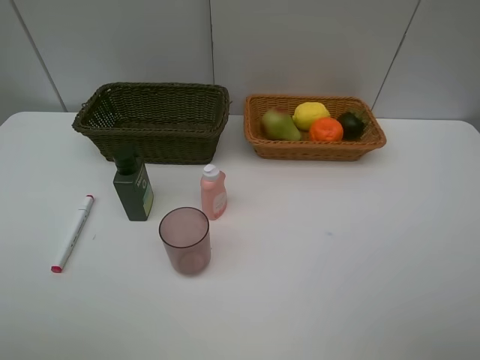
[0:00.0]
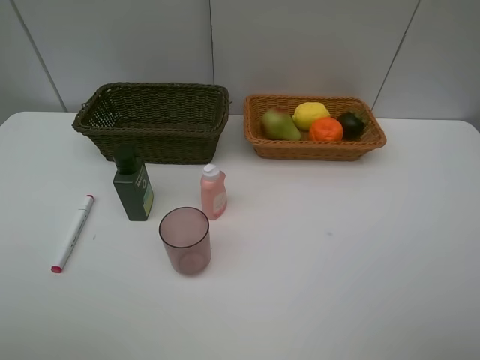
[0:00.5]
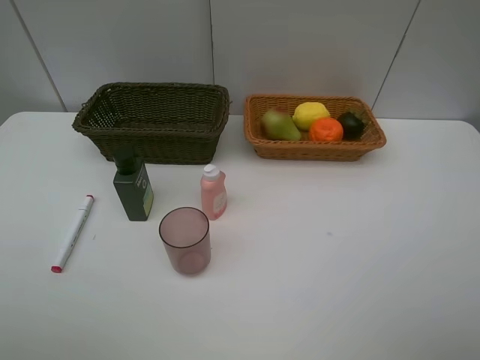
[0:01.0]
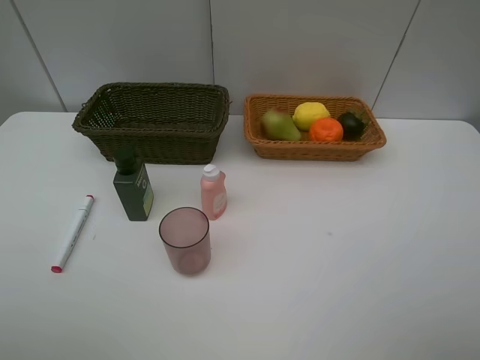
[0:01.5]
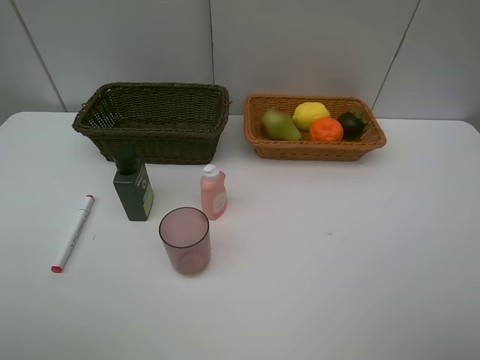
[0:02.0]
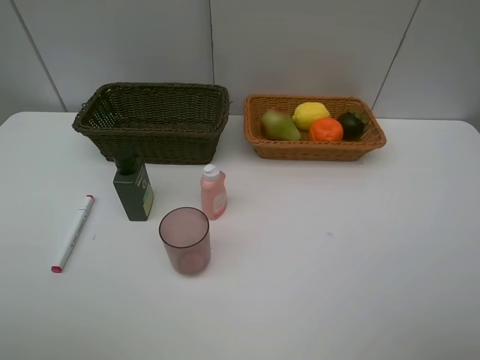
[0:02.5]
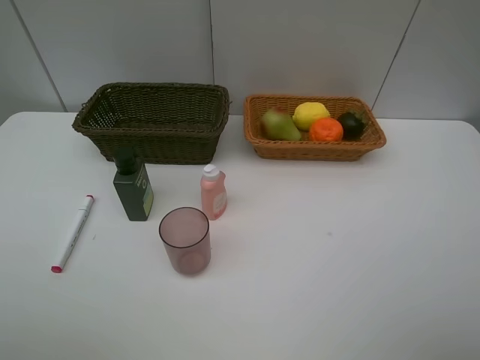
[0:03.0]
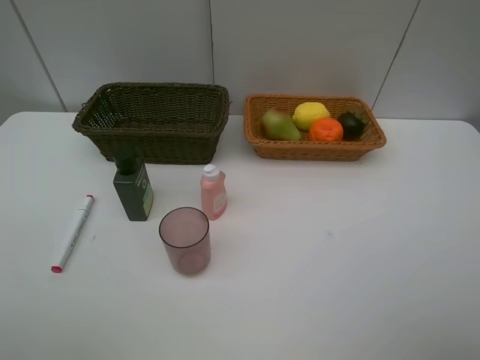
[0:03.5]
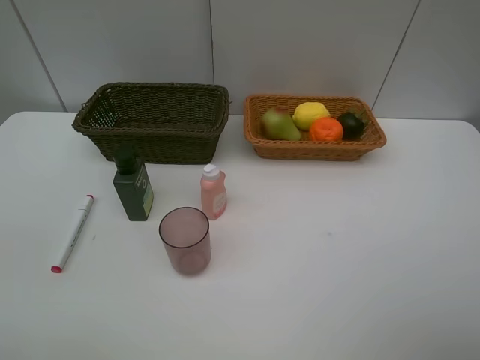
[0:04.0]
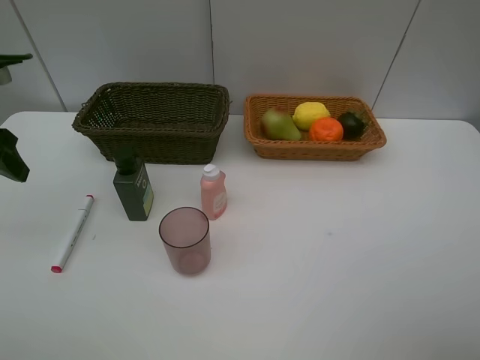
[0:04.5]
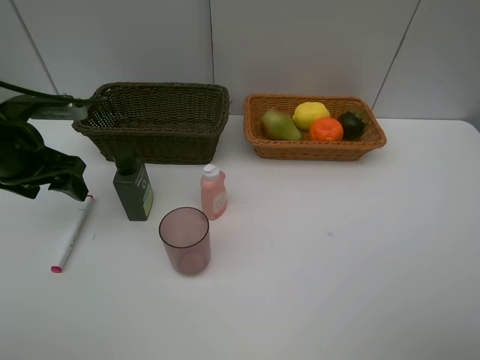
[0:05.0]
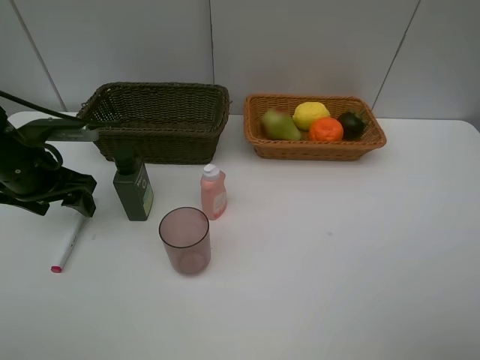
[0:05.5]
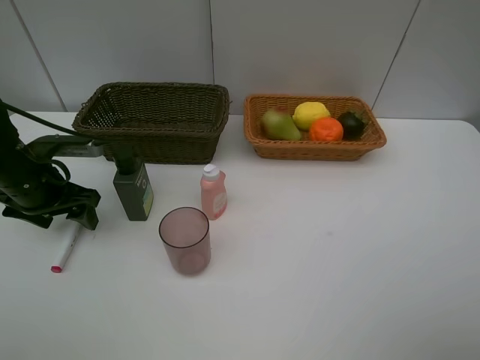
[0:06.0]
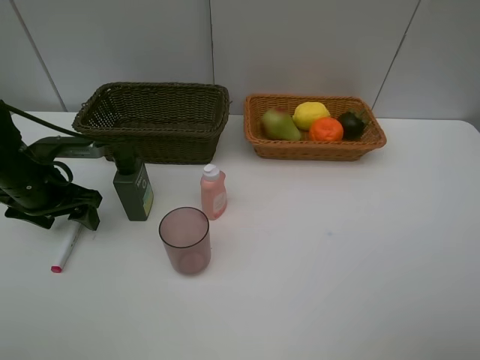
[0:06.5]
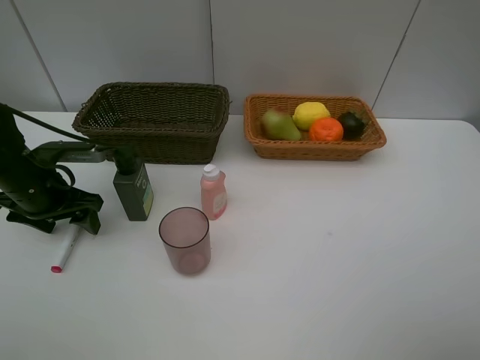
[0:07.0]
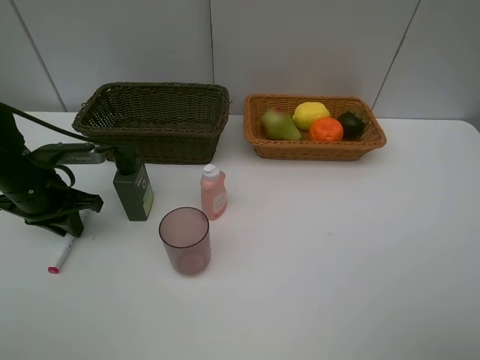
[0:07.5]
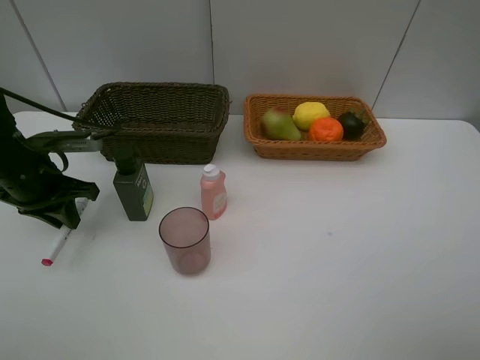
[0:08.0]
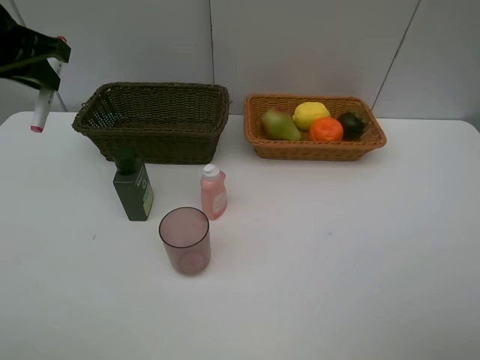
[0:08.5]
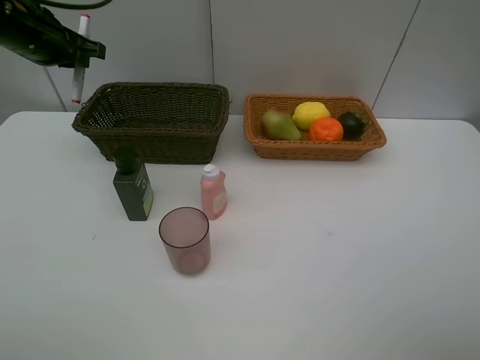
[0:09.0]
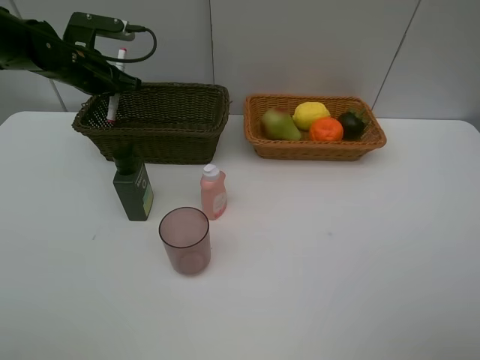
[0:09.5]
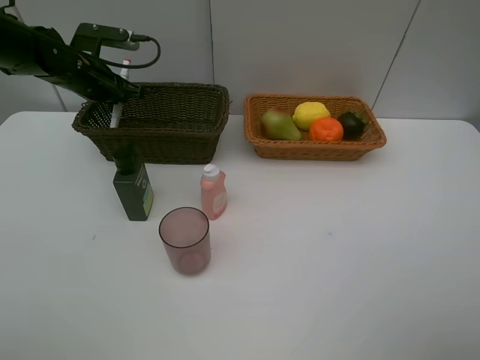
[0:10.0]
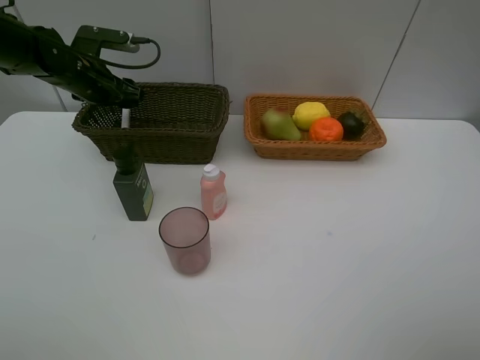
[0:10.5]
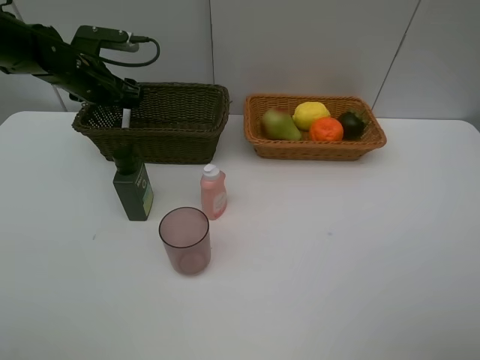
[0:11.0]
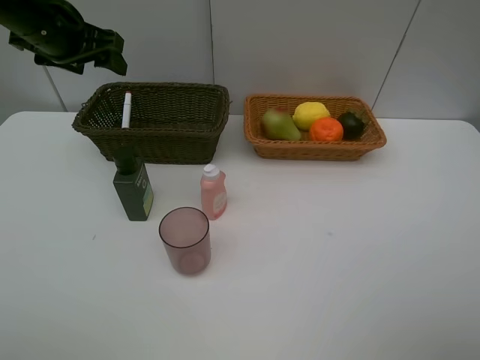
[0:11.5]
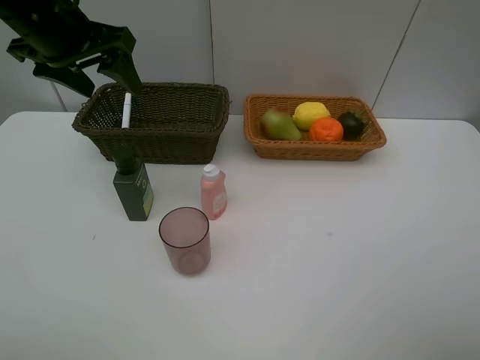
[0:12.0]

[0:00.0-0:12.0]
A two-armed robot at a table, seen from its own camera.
Task of the whole recording: Place multiple objects separately in different baskets.
Step, 0:00.0 to 0:08.0: Pick up the red marker with left gripper.
Step, 0:08.5 to 0:11.0: Place the red marker in the dark basket with left gripper.
0:04.0 to 0:06.0: The left gripper goes some 20 cm downward and forward.
0:06.0 to 0:08.0: The left gripper closes its fingers.
0:08.0 to 0:10.0: The left gripper shifts approximately 15 cm forward.
0:10.0 to 0:12.0: The left gripper shifts some 20 cm upward and backward, and opens.

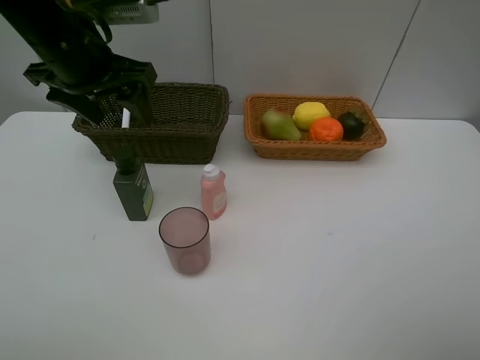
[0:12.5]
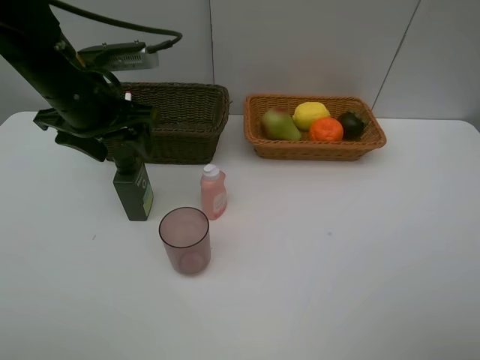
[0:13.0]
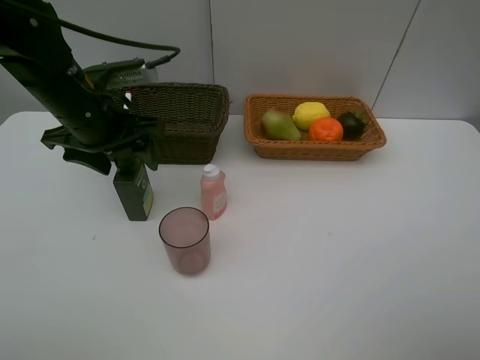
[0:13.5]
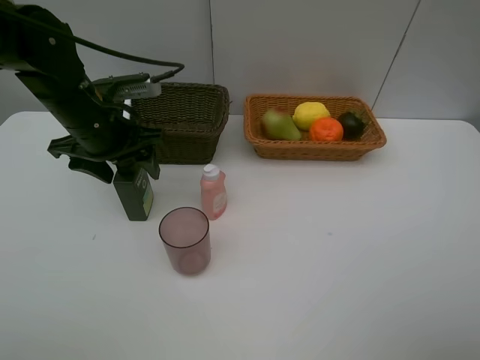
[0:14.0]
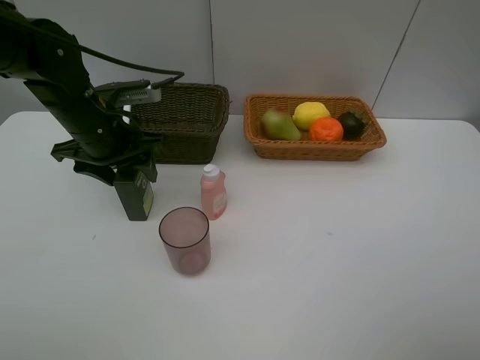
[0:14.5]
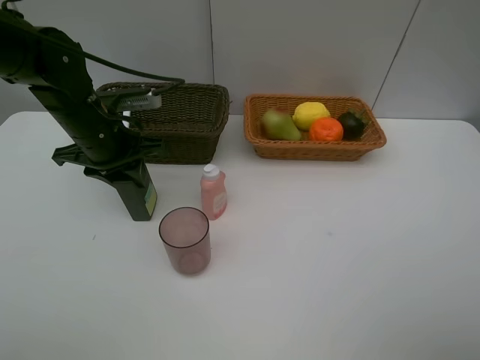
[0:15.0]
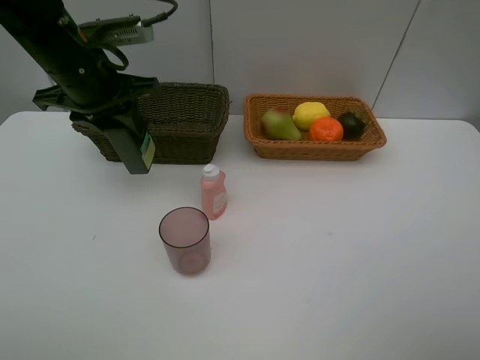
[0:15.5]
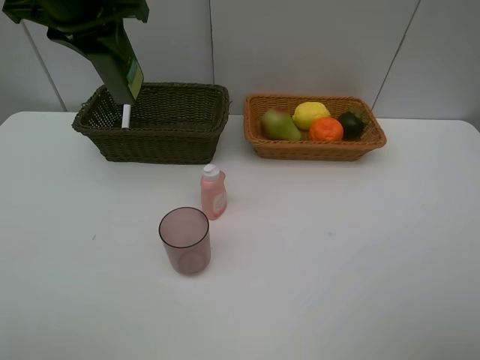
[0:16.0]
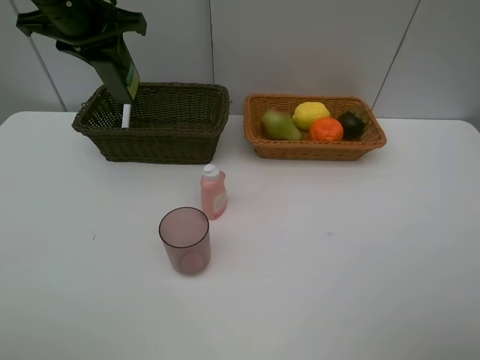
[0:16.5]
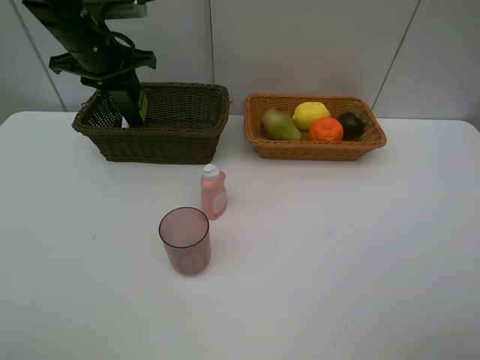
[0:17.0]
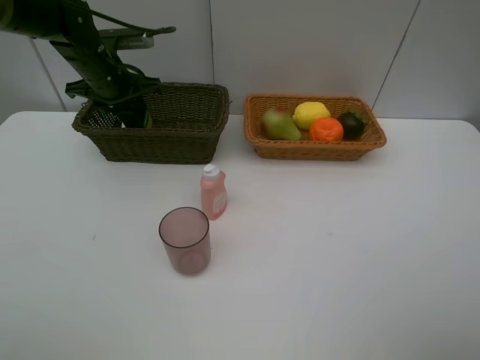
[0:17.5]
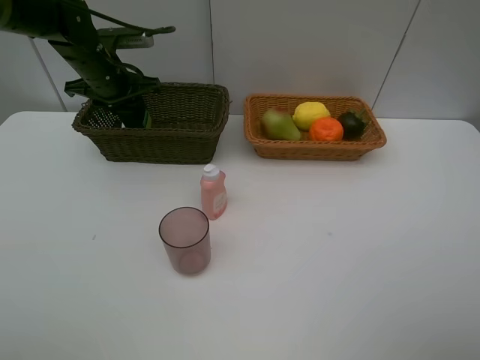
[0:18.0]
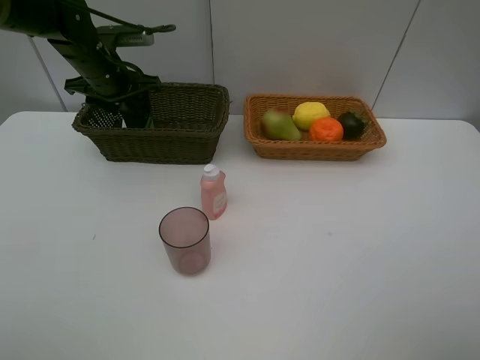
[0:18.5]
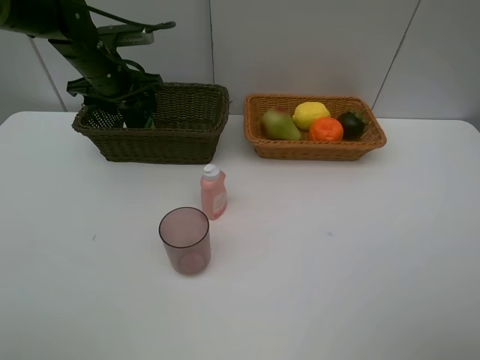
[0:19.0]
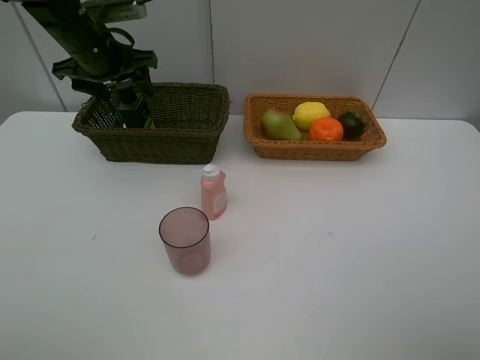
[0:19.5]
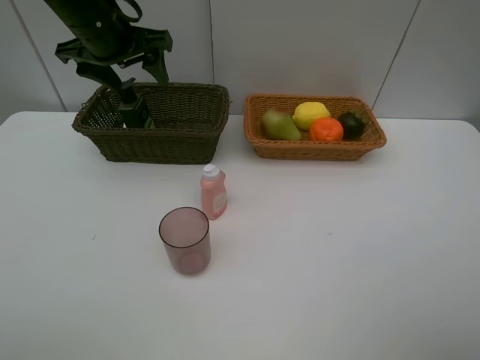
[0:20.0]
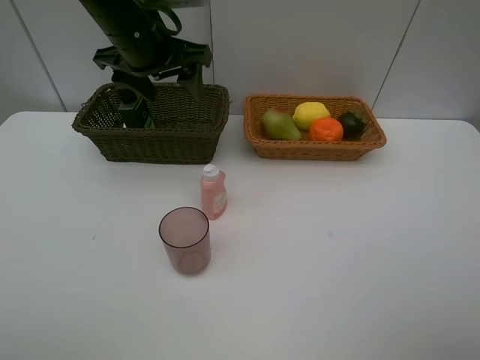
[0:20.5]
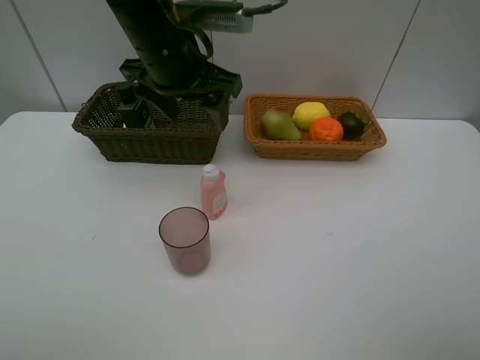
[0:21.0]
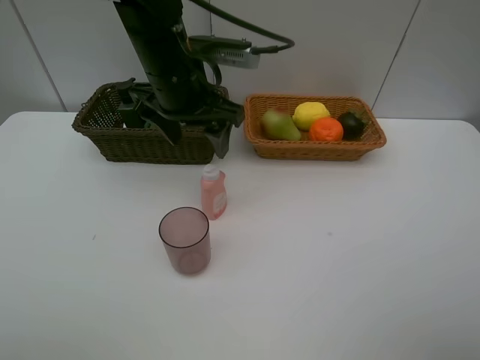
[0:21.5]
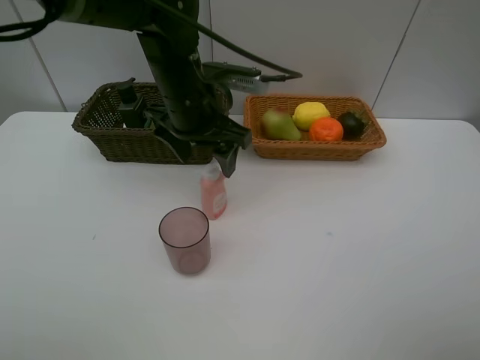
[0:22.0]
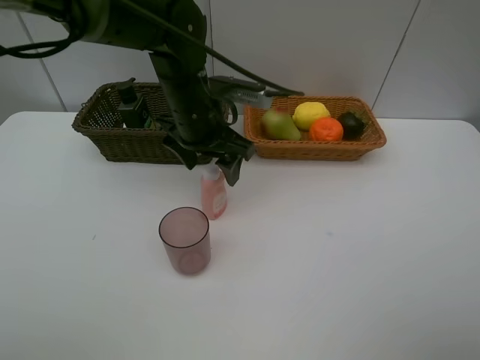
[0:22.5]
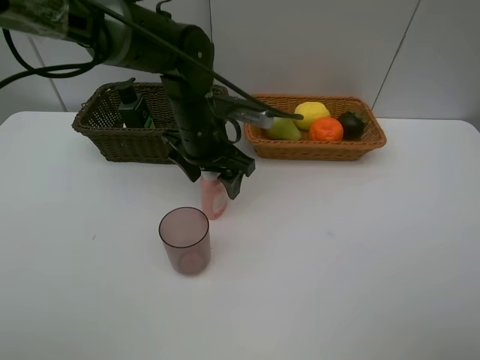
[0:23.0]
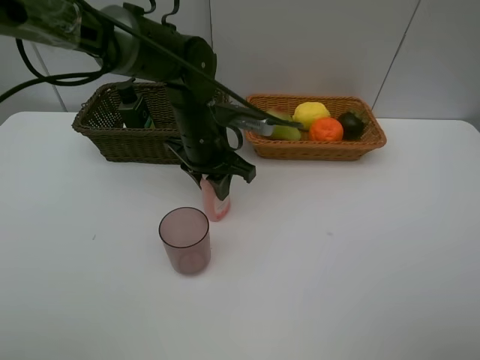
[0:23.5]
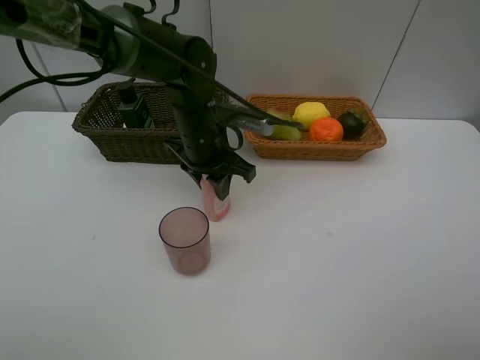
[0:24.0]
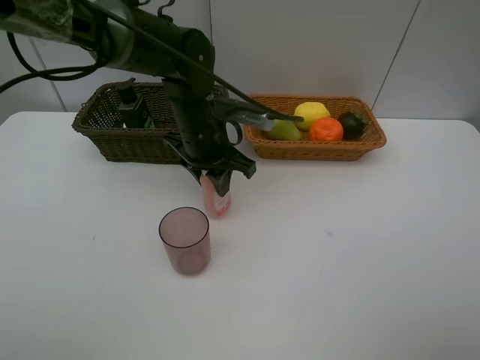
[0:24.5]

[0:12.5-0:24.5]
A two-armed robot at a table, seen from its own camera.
Task of the whole recording: Place multiple objects separately in different baskets.
Step, 0:12.5 to 0:15.0: Pick up the hard facial cleanser with left gripper.
Step, 0:15.5 to 0:19.5: Place the hard facial cleanser in the dark basket with left gripper.
0:12.5 to 0:14.5: The left gripper travels downward by about 10 cm.
0:14.5 to 0:16.5: The left gripper moves upward and forward, roughly 15 cm.
0:16.5 to 0:18.5: The left gripper shifts approximately 10 cm downward and forward, and opens.
0:18.5 to 0:20.5: The left gripper heads to the right, upward and backward, covering approximately 15 cm.
0:20.5 to 0:22.5: The left gripper heads downward and to the right, covering approximately 10 cm.
0:22.5 to 0:24.5: The left gripper closes up.

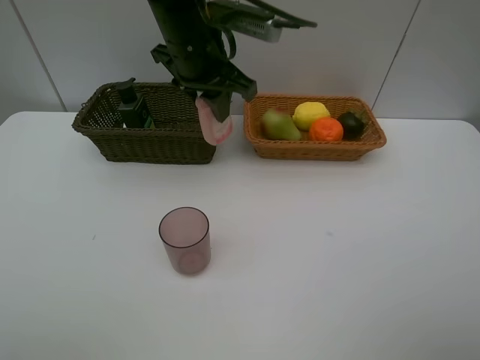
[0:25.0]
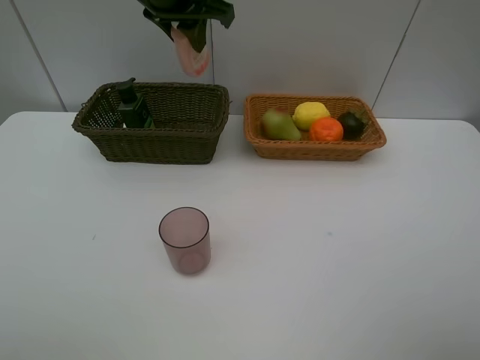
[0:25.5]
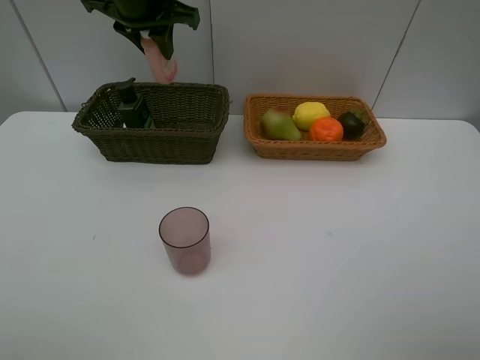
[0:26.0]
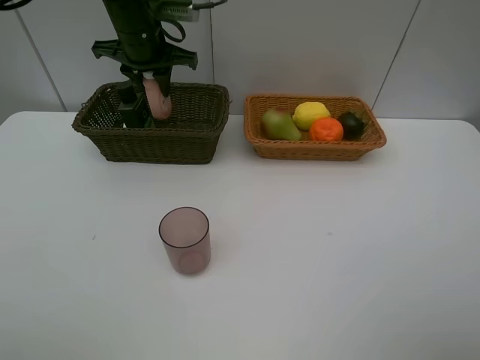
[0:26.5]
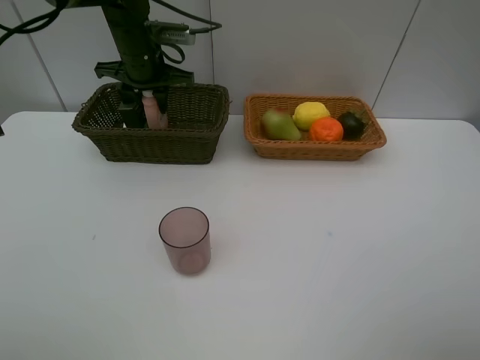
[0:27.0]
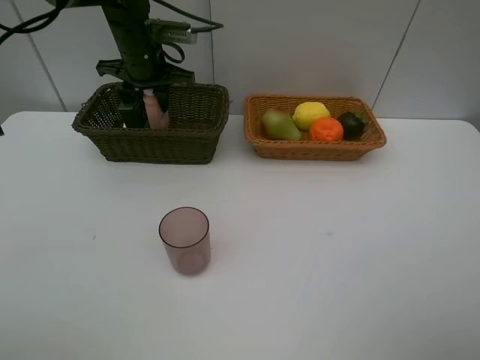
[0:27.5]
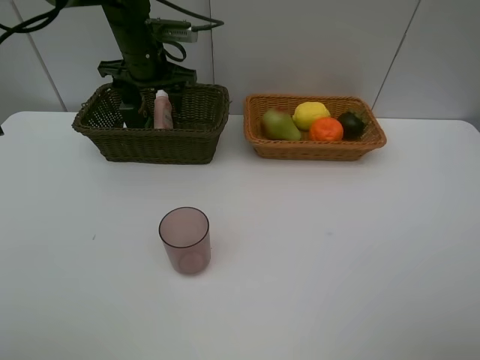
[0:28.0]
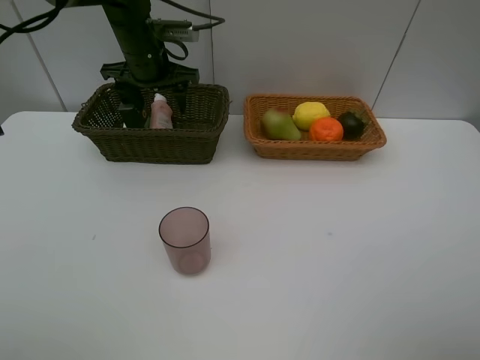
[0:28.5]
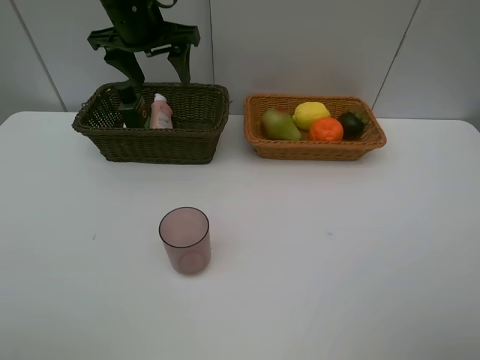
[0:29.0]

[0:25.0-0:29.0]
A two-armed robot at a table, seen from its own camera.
Task of the whole recording: Place multiple objects separately in different baskets.
Step, 0:25.0 to 0:28.5: Place the laundry detergent in the dark basket with left gripper.
0:25.0 to 0:27.0: The left gripper goes roughly 15 cm forward, to the left and downward.
0:27.0 to 0:29.0: The left gripper goes approximately 10 cm upward, and opens up.
